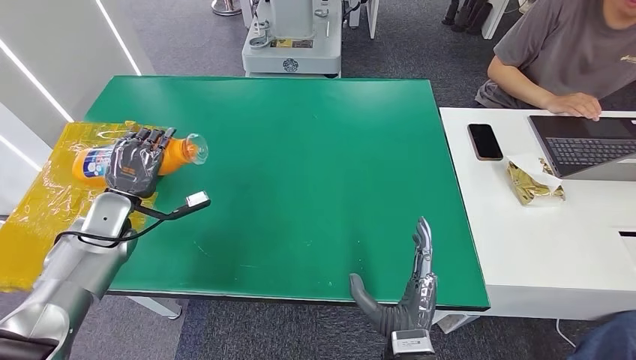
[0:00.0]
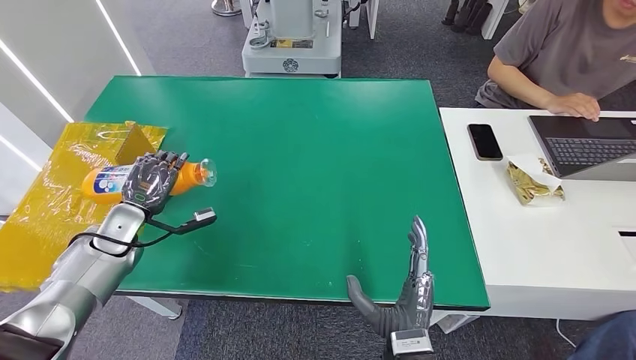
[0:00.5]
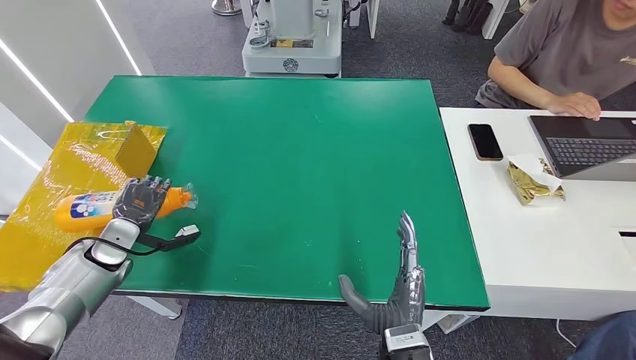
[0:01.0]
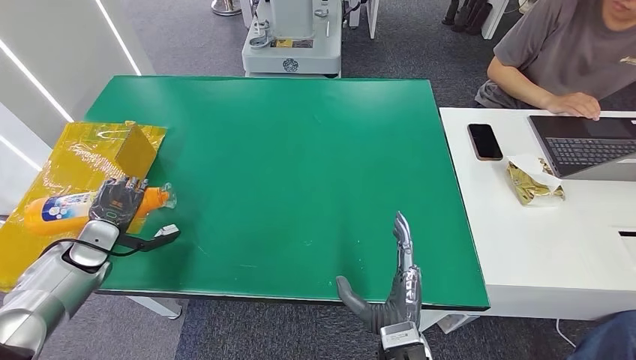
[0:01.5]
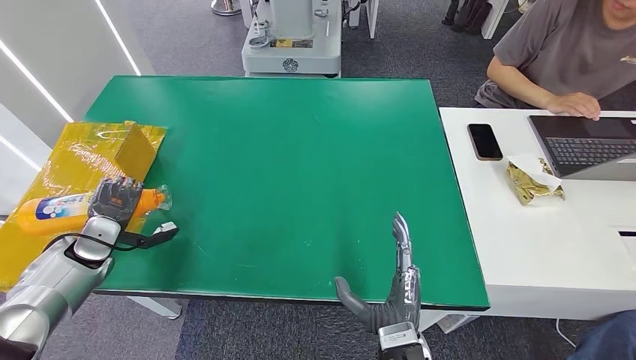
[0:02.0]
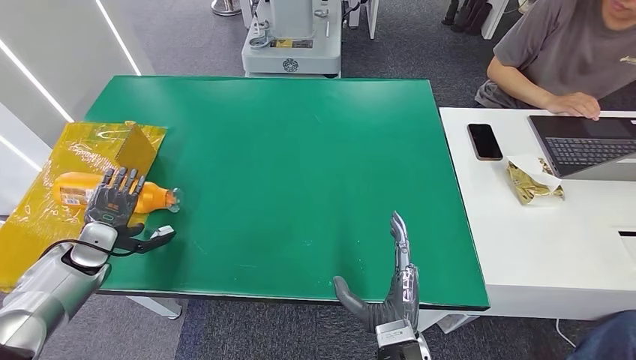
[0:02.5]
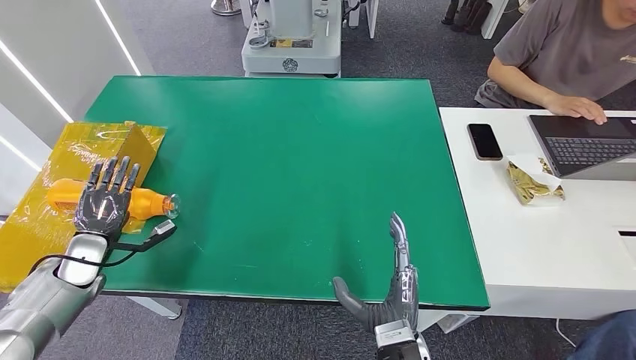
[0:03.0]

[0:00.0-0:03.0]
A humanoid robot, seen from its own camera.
Step, 0:00.0 to 0:03.0: Turn the bottle to the front side.
0:00.0 to 0:01.5: The left hand is displaced to the left by about 10 cm.
0:01.5 to 0:03.0: The hands stay close to where they were, moving slightly.
